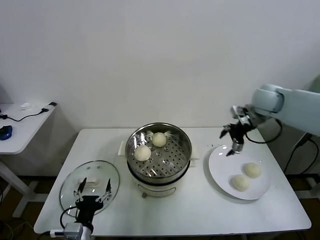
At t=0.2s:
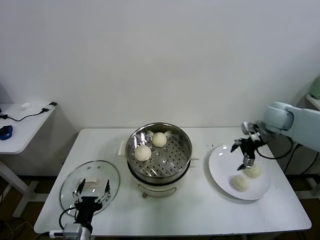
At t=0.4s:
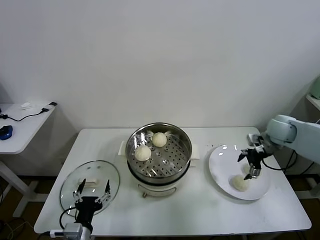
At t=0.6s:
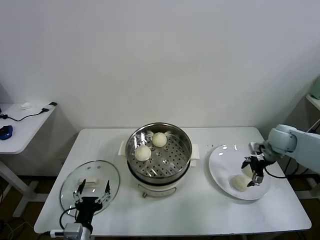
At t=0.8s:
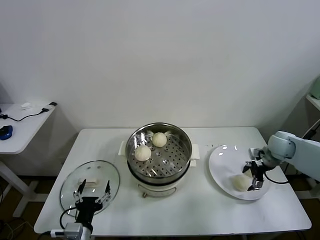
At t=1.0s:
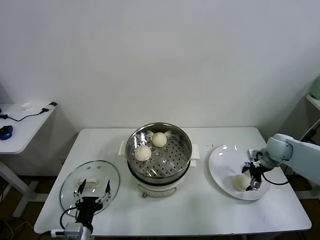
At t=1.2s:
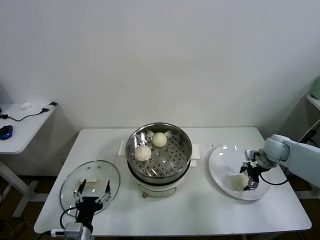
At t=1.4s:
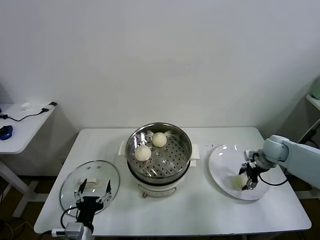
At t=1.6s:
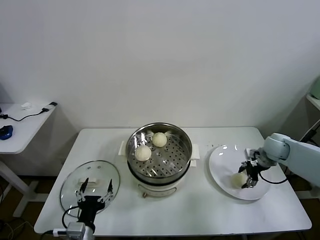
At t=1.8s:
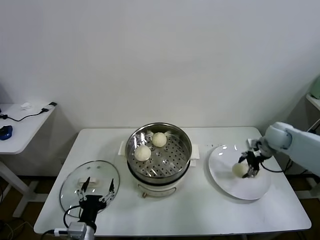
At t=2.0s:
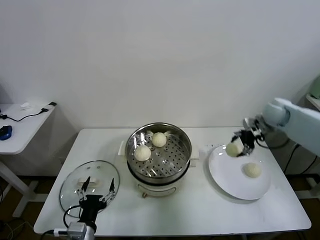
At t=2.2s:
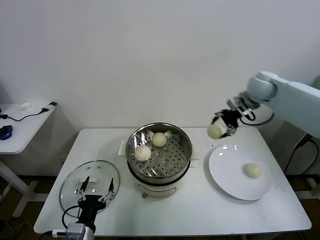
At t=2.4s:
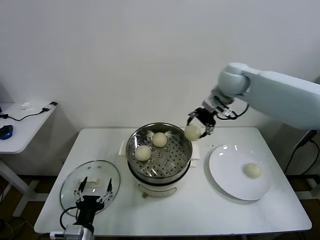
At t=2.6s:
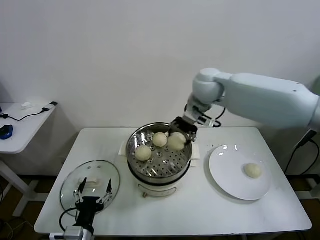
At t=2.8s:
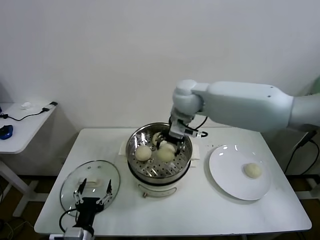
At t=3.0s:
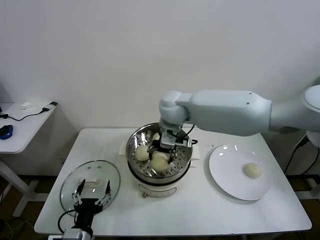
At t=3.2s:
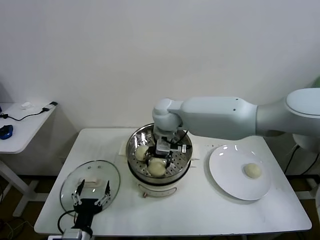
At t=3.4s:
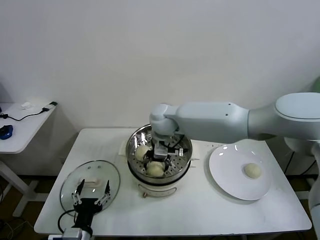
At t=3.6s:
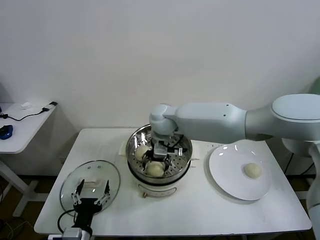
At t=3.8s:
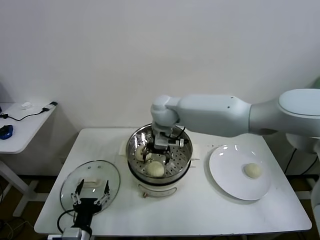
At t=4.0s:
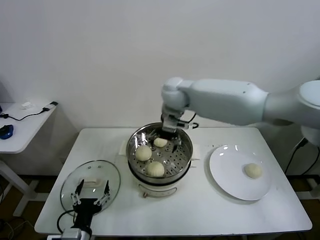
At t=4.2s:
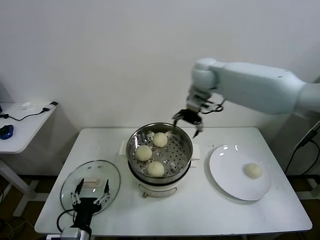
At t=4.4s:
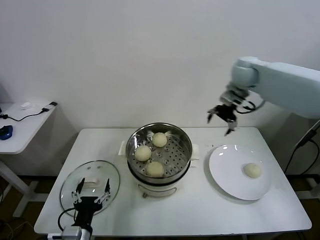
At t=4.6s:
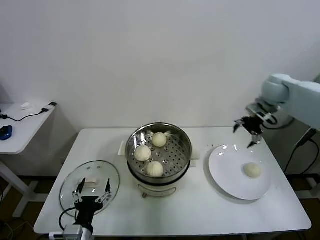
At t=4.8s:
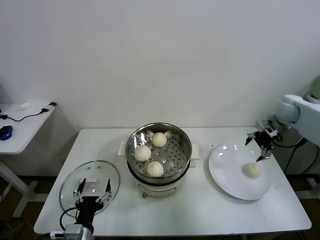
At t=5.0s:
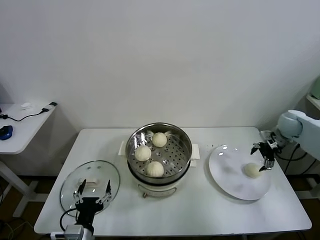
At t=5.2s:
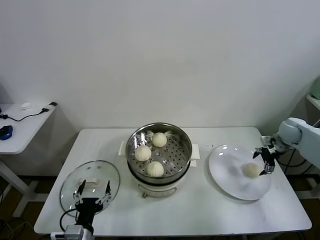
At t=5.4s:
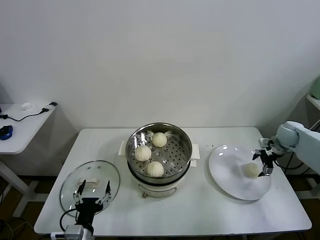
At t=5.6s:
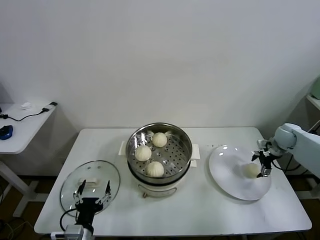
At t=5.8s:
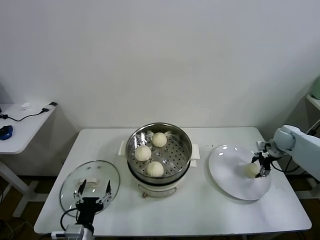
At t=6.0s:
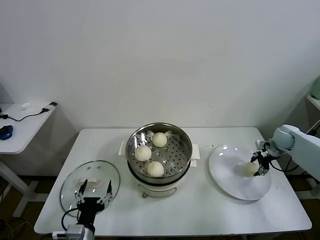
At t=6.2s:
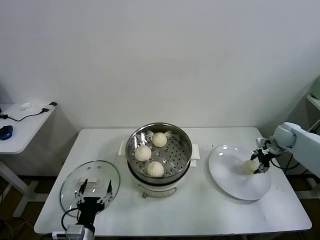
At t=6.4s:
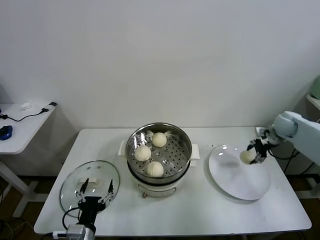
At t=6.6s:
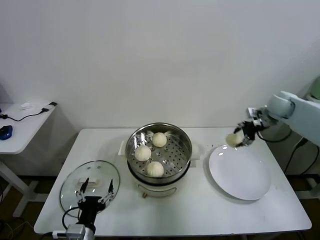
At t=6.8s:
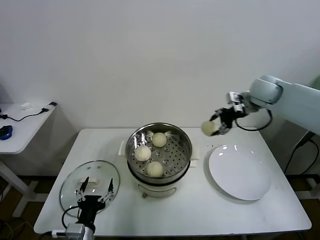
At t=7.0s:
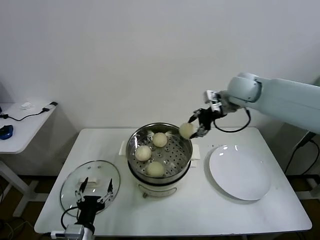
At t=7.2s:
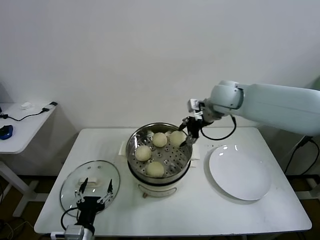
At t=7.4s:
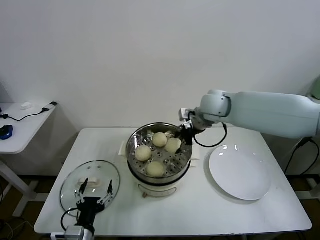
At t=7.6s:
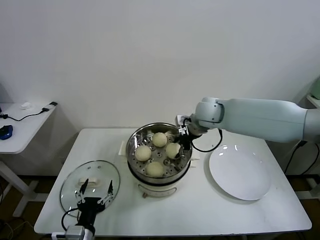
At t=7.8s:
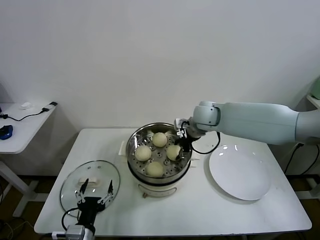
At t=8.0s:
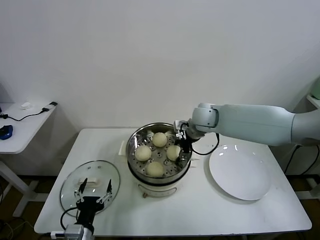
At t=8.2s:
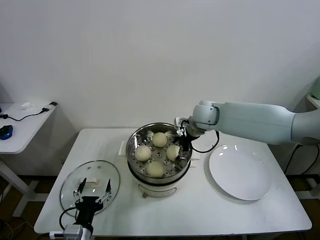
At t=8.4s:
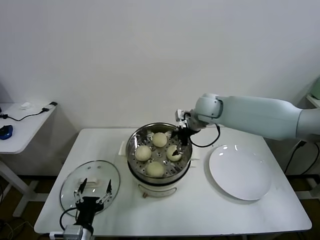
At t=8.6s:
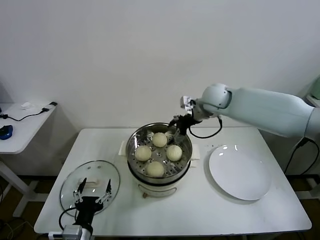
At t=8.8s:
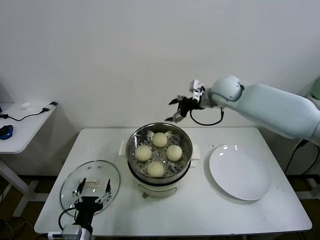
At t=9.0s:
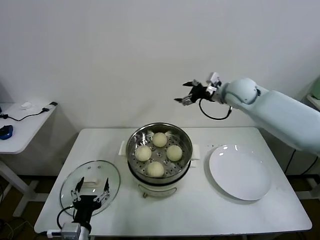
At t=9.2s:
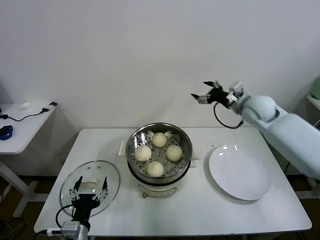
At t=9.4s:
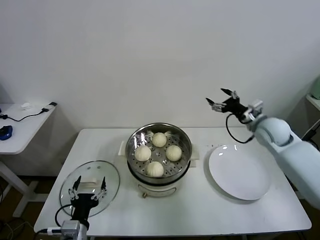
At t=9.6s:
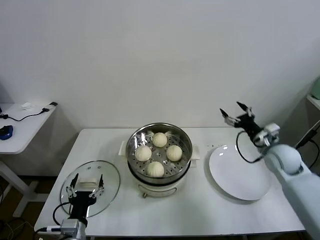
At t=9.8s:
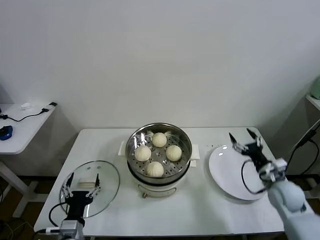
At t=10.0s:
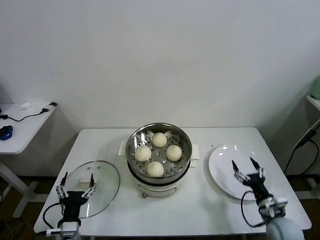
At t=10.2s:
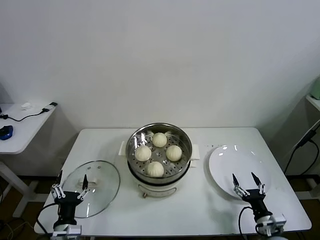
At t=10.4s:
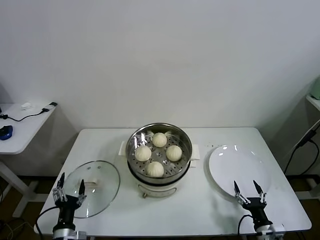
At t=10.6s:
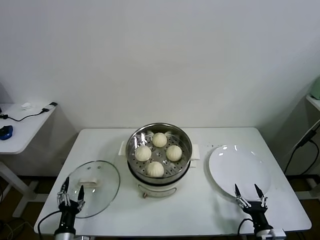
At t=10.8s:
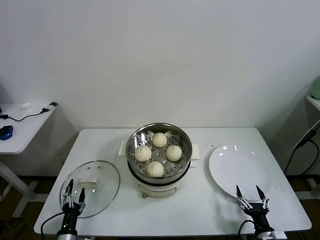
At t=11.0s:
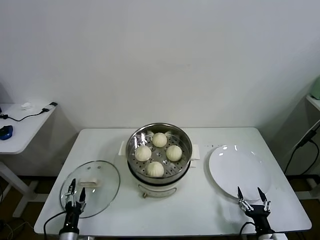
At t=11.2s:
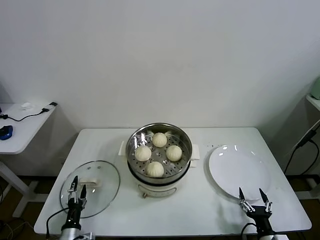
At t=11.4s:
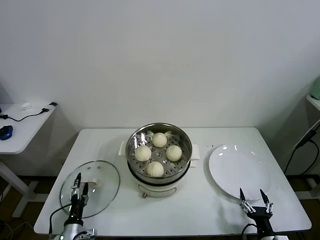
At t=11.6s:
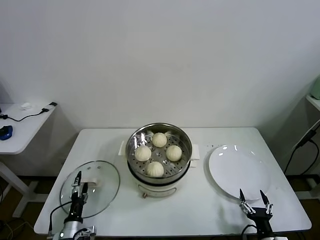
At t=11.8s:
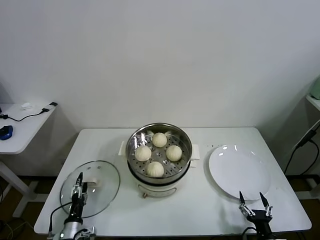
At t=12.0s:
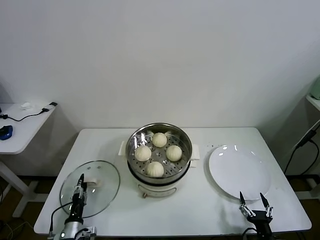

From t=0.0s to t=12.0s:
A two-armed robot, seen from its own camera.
Task of the whole recording: take steamed baozi put them in steamer.
Step, from t=0.0s to t=1.4s: Grasp the baozi in the plate with right gripper.
Step, from t=1.6s to t=3.8s: Place the baozi on the steamer with right gripper.
Step, from t=4.0s to t=5.8s: Grasp the baozi in the plate with right gripper.
Step, from t=6.0s to t=8.4s: Place the baozi on the steamer with right gripper.
From t=0.0s to t=1.6s: The right gripper travels downward and to the right by about 15 cm, and closes its fingers.
From t=1.6s to t=3.0s: The right gripper moves to the left and upward, some 40 cm.
From t=3.0s to t=4.4s: The right gripper heads to the right, covering approximately 25 cm, and opens.
From t=4.4s to t=6.0s: The right gripper is displaced downward and to the right by approximately 30 cm, and closes up.
From t=6.0s to t=7.6s: The right gripper is displaced to the left and upward by some 35 cm.
From t=7.6s to t=9.0s: The right gripper travels to the right by roughly 10 cm, and opens up.
From t=9.0s to t=10.4s: The left gripper is displaced downward and to the left by some 10 cm, while the right gripper travels backward and downward by about 50 cm.
From t=10.4s to t=12.0s: The left gripper travels downward by some 10 cm, and closes its fingers.

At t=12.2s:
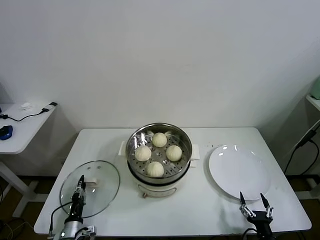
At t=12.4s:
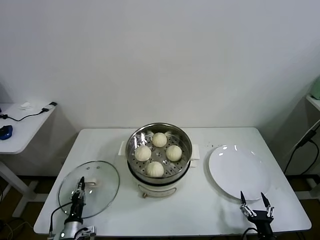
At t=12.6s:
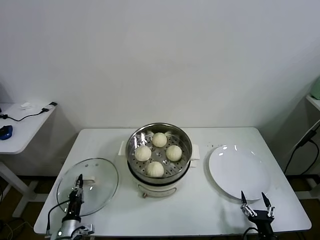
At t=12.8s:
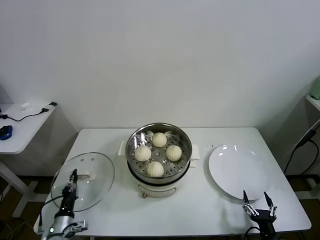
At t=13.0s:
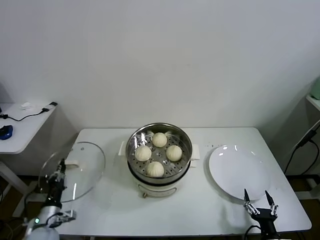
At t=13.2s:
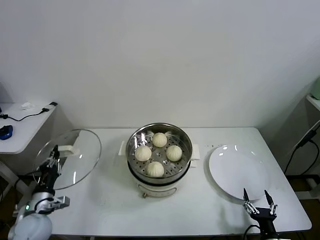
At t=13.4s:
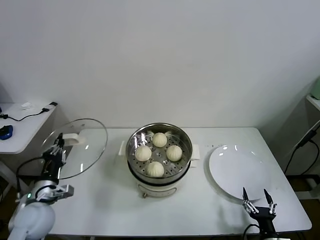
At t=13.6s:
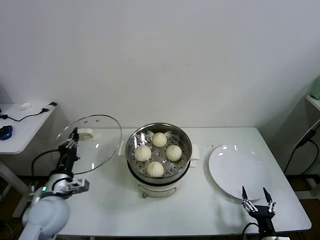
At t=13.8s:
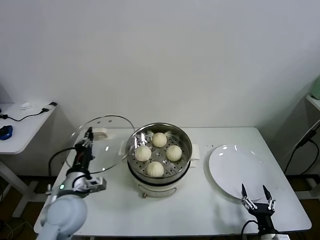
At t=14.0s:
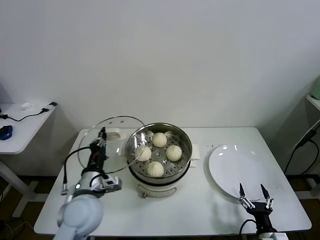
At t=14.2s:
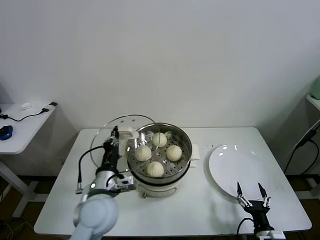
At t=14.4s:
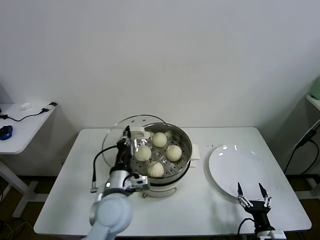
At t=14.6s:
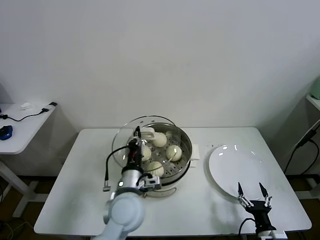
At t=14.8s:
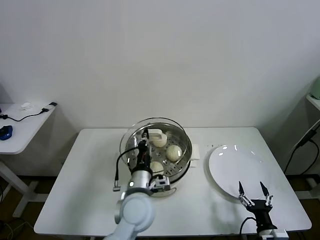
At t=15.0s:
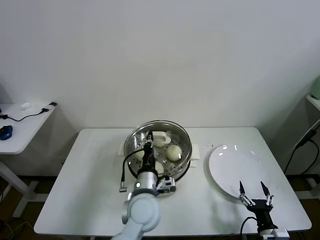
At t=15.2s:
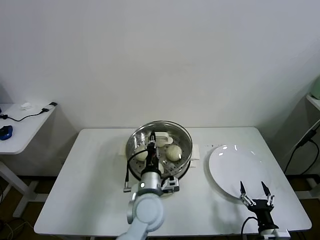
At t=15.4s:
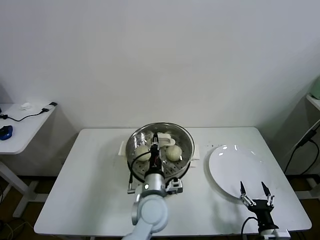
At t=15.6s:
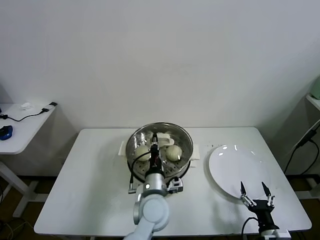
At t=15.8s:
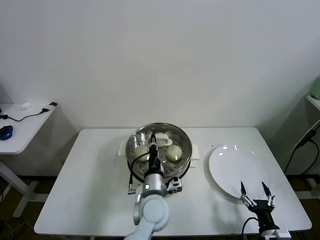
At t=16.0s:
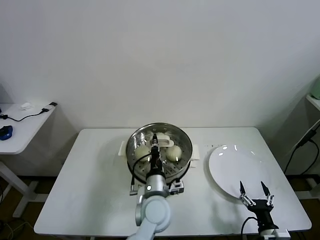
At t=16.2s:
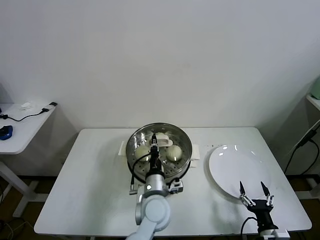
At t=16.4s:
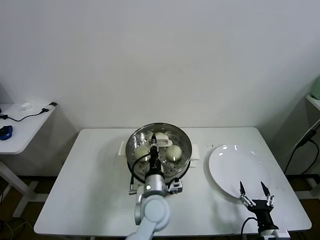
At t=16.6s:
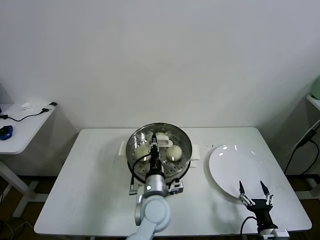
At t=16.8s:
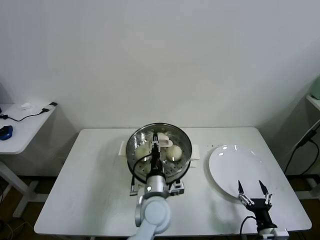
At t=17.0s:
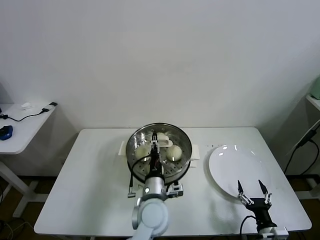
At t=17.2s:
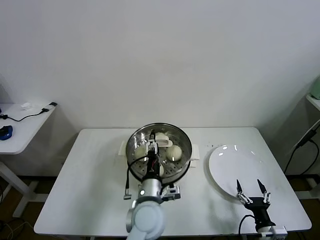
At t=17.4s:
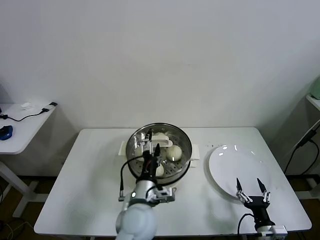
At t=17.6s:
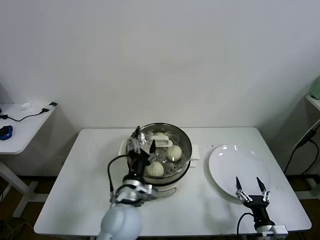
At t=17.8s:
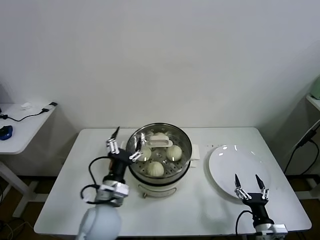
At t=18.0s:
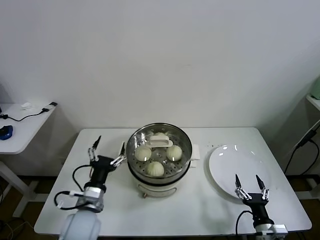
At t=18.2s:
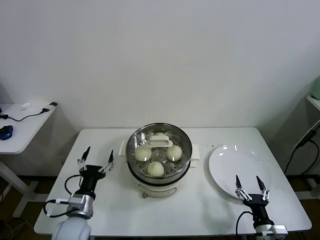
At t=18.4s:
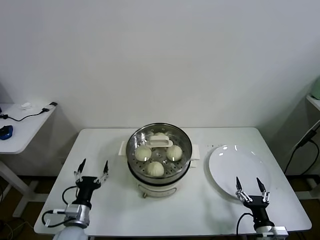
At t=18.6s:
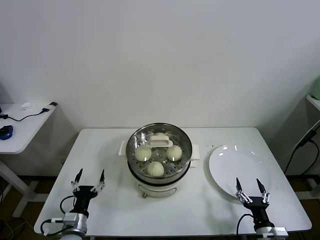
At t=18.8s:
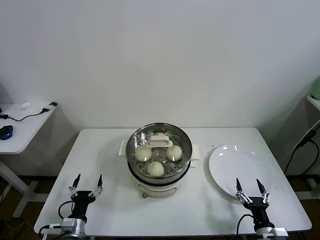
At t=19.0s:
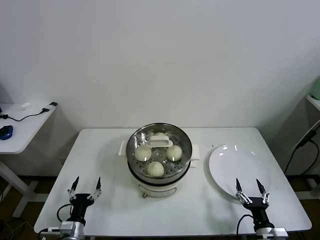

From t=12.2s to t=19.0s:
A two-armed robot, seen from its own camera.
Task of the whole recording: take steamed baozi put them in steamer.
Step, from t=12.6s to t=17.2s: Place the pot lid on the steamer with left gripper.
From t=12.2s to t=13.6s: The left gripper shifts approximately 25 cm upward, and closes its fingers.
From t=13.6s to t=15.0s: The left gripper heads to the right, covering some 25 cm.
From t=15.0s to t=16.2s: The left gripper changes place by roughly 5 cm.
From t=16.2s to t=17.6s: The left gripper is displaced to the left by about 5 cm, and opens up.
From t=17.6s to t=19.0s: The left gripper travels to the left and downward by some 30 cm.
